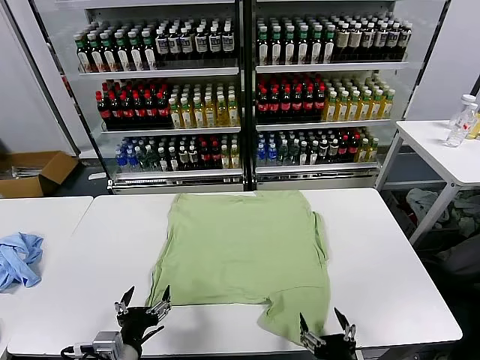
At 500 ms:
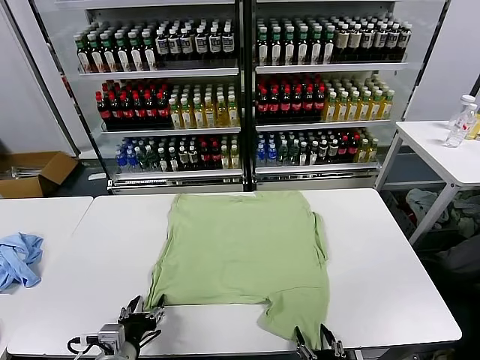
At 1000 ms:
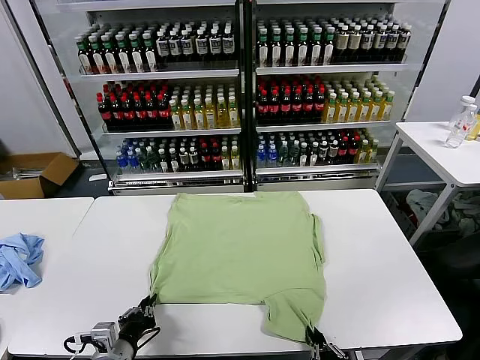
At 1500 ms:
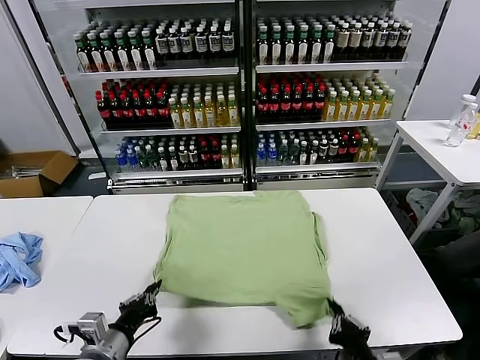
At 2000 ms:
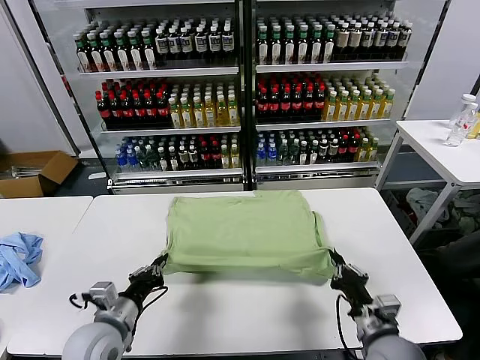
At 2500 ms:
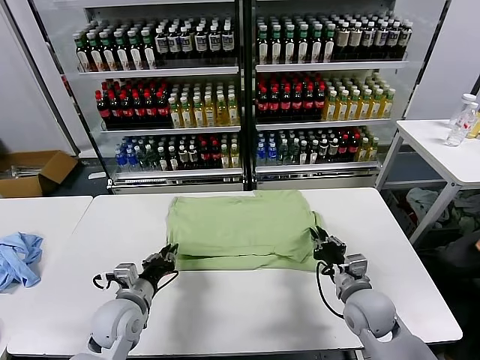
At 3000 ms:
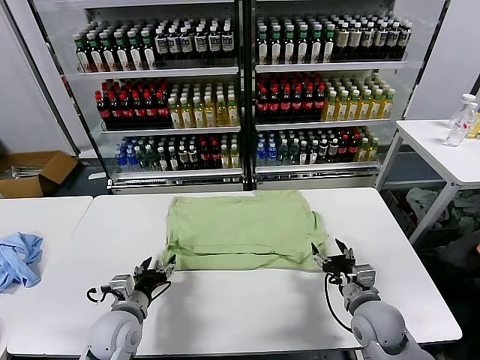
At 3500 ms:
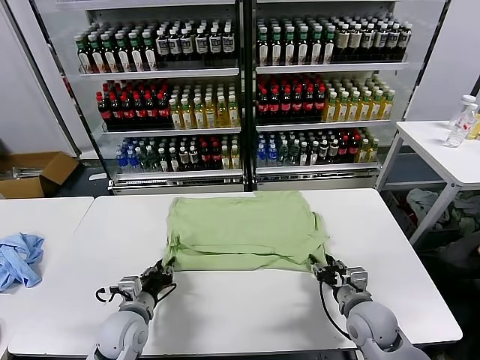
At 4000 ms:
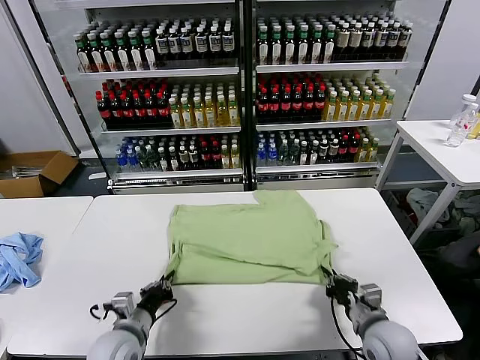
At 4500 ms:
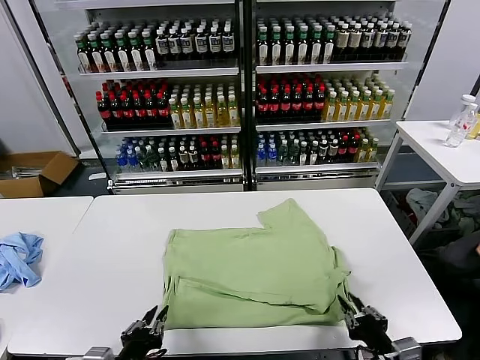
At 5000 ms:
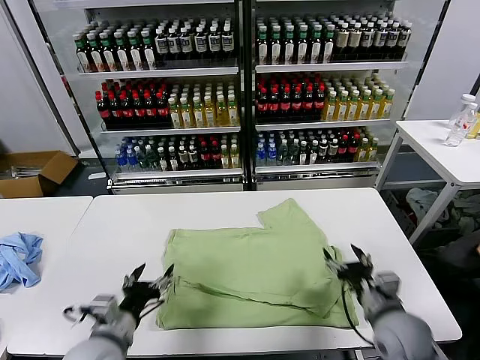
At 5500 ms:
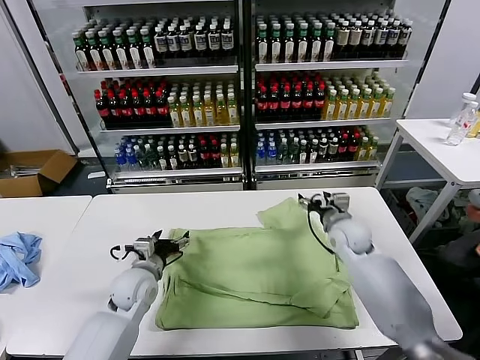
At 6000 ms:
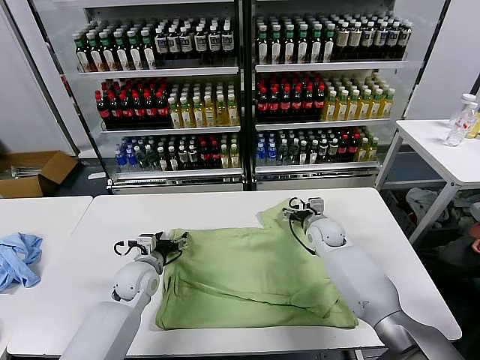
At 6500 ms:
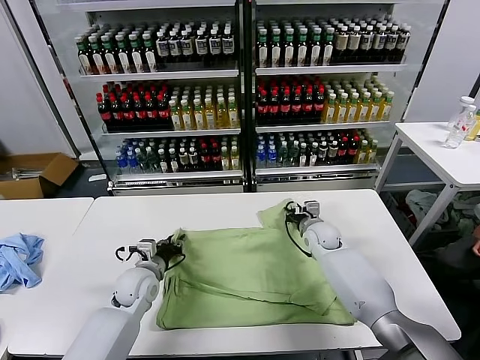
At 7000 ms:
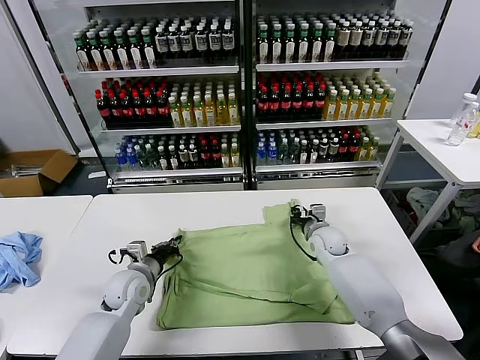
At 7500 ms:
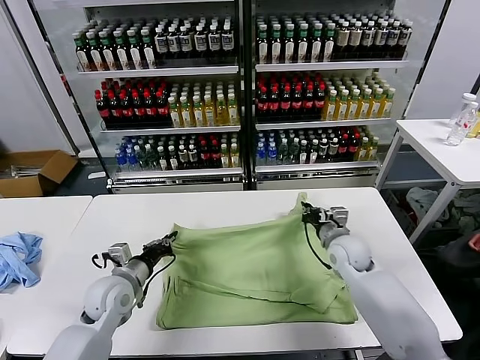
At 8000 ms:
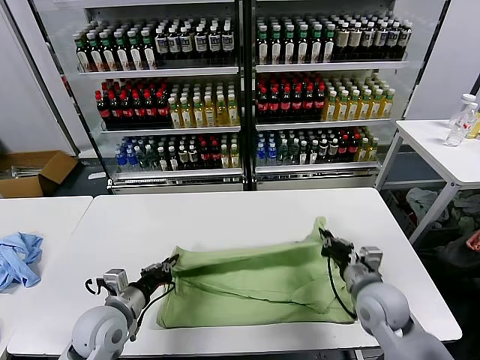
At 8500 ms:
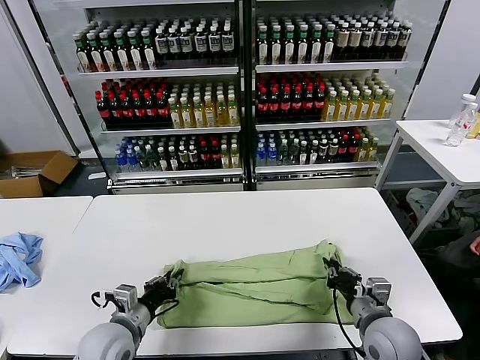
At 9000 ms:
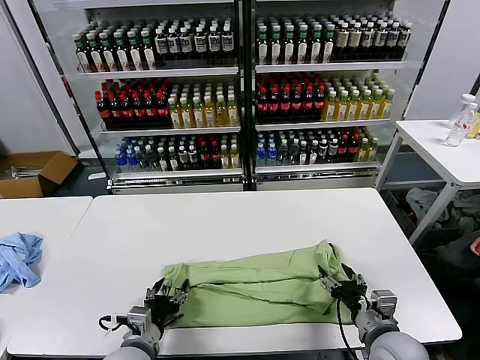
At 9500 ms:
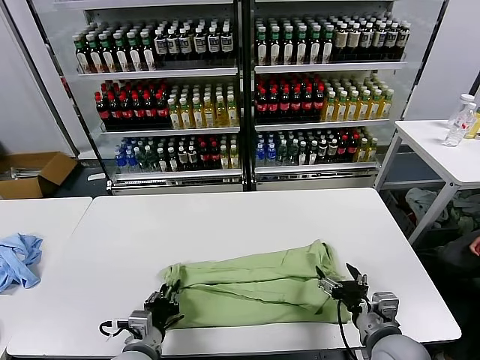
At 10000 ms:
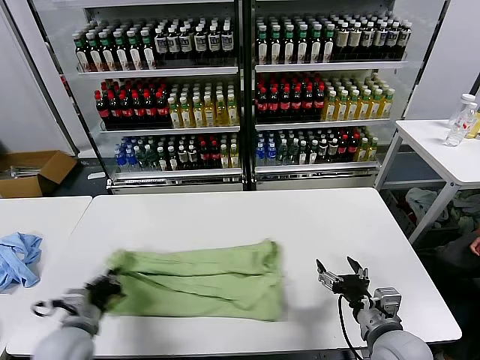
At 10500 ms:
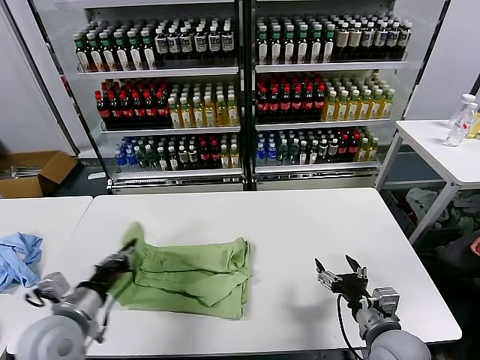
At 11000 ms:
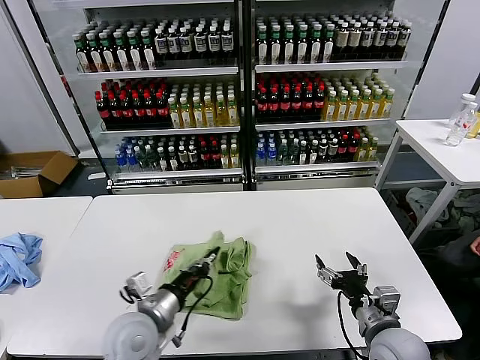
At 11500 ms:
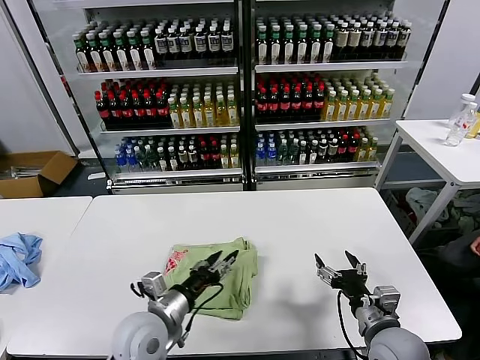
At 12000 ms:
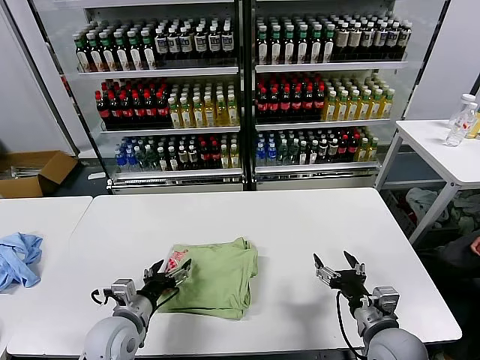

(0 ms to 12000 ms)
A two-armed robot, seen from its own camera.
Task of the whole recording: fold and organize the clothes.
Step, 0 ms - 1000 ms: use both grippers simultaneously to clamp the lower edge of the clothing fabric.
Step, 1500 ms - 2500 ms: use both grippers to drag the lower edge of the fabric forward and fold it over the upper edge.
Step, 3000 ms - 4500 ms: Drag the clothes downward with both gripper.
Step, 5000 ms - 6500 ms: use both grippers simultaneously to clamp the upper edge of the clothing fabric.
Step, 7000 ms - 9000 ms: use both grippers to drag the upper edge of the fabric backward and fold it over the lower edge.
Step, 10000 ms - 11000 ms: use the left gripper to drag the left edge of the fabric to the left and folds it over the right edge.
2000 ms - 4000 ms: The right gripper moves backward, roughly 10 cm, and opens, then closes once more; the left gripper moves approximately 5 cm, and opens, then closes again.
4000 ms - 6000 ms: The left gripper heads forward, covering some 20 cm, and opens up. The right gripper shifts roughly 35 cm forward, and opens.
6000 ms - 8000 ms: The right gripper travels backward by roughly 25 cm, and closes; the left gripper is displaced backward by roughly 15 cm, and closes.
8000 ms - 10000 ms: The right gripper travels backward by roughly 5 cm, and opens. Meanwhile the left gripper goes some 5 cm to the left, and opens and closes again.
10000 ms - 12000 ms: The left gripper heads to the right, covering roughly 10 cm, and opens.

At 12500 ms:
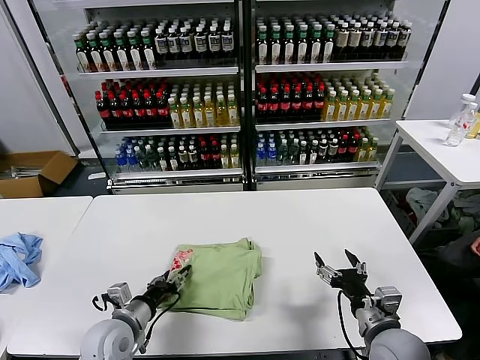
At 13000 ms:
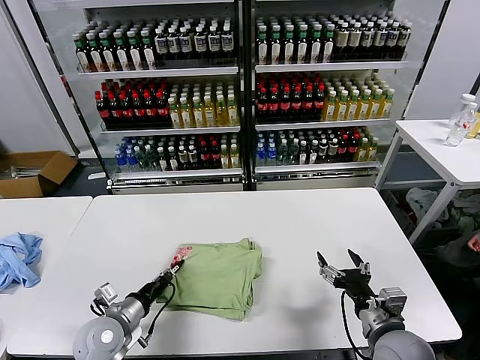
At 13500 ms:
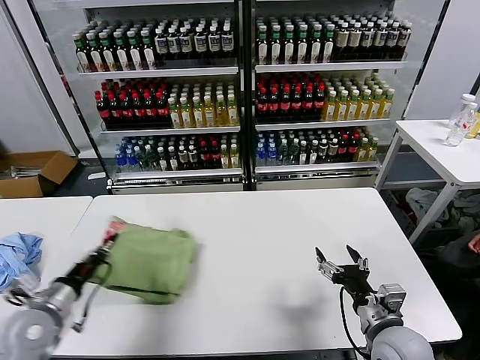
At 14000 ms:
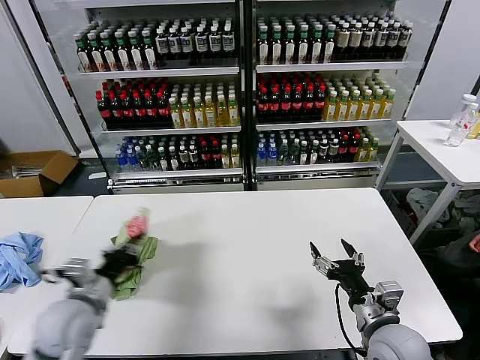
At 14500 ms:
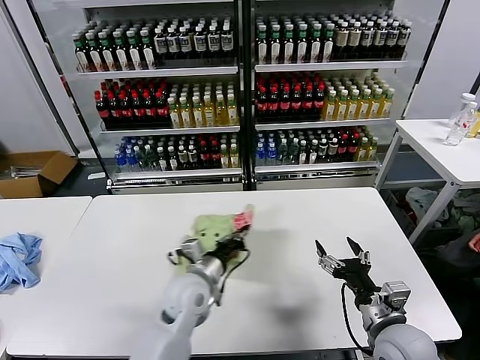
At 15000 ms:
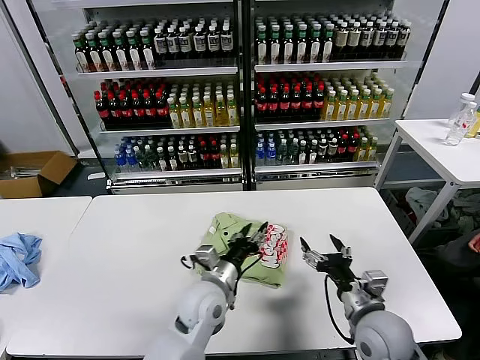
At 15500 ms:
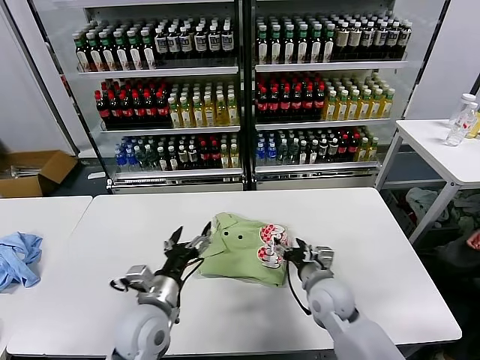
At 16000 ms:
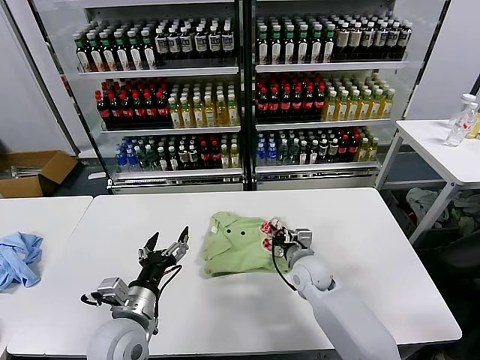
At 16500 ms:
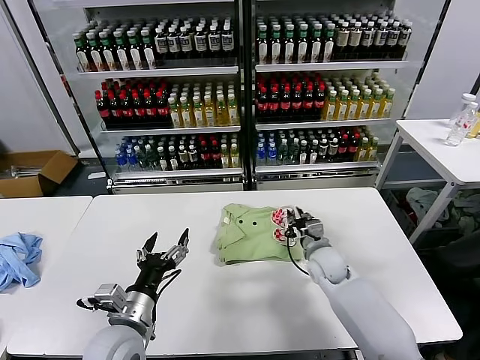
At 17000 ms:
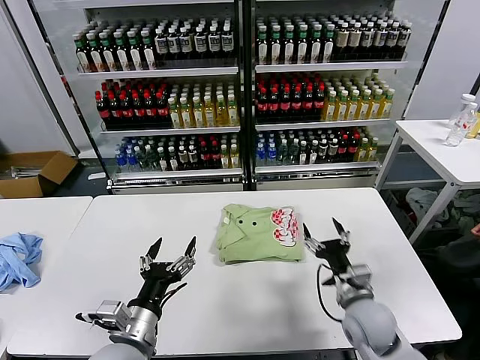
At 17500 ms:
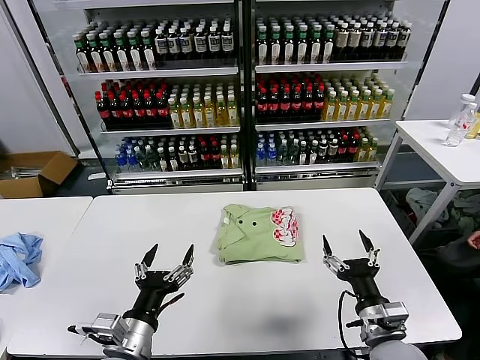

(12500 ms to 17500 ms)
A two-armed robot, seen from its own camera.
Task of the whole recording: fold and organize the clothes.
Step, 12500 ms - 14500 ms: Flip the folded clothes over with left gripper.
Step, 15000 ms - 16500 ms: Drag the clothes to the center of the table.
12500 ms - 15000 ms: The left gripper is displaced to the right by about 20 cm, and closes, then opens again.
15000 ms - 17500 ms: The left gripper heads backward and to the left, covering about 20 cm, and opens up; the right gripper goes forward and returns, approximately 20 cm each way, and closes, then reopens.
